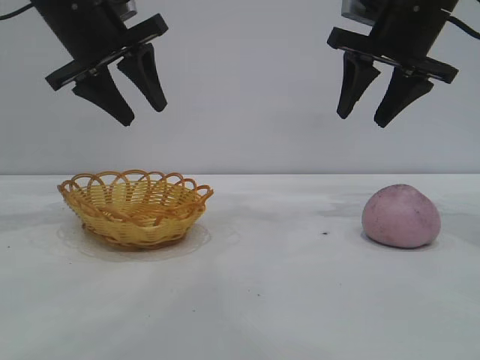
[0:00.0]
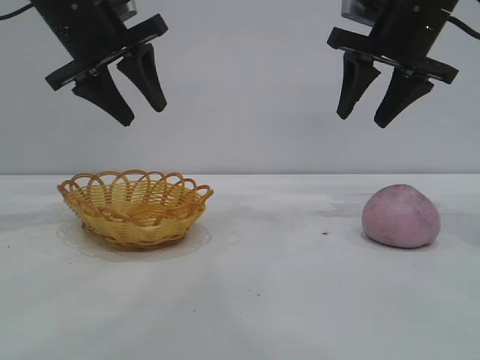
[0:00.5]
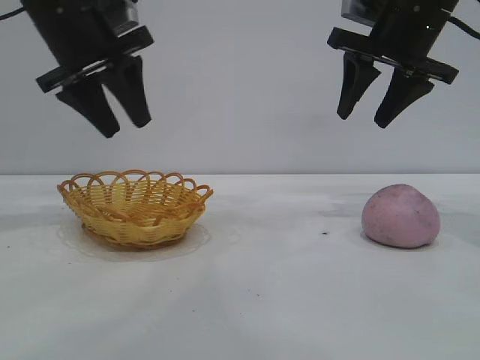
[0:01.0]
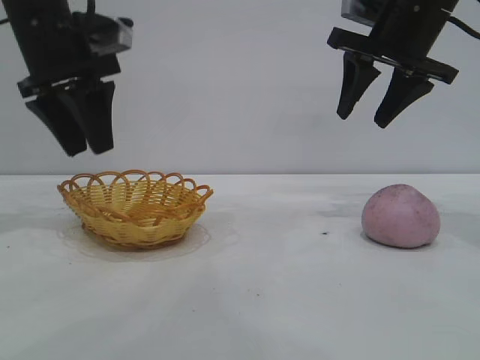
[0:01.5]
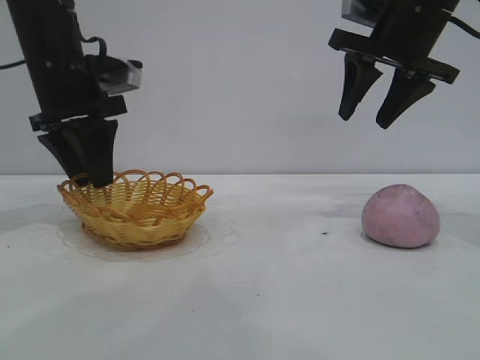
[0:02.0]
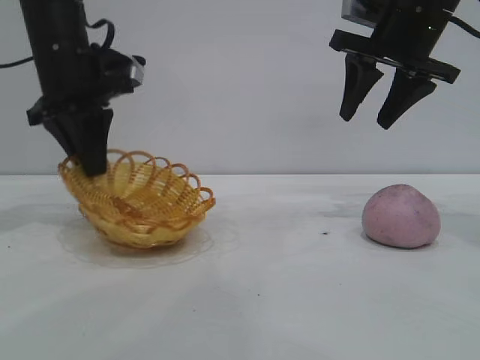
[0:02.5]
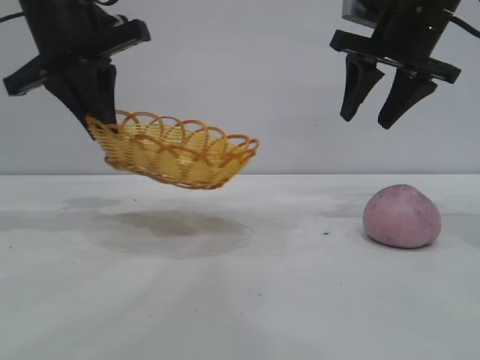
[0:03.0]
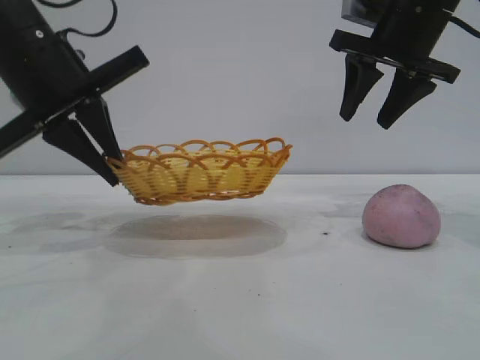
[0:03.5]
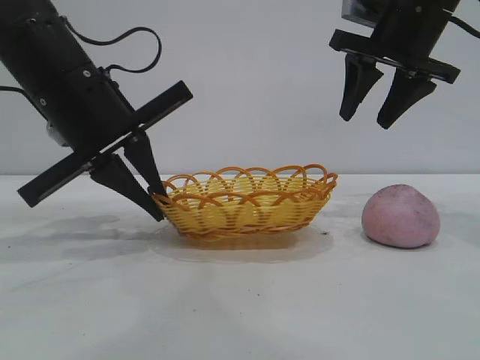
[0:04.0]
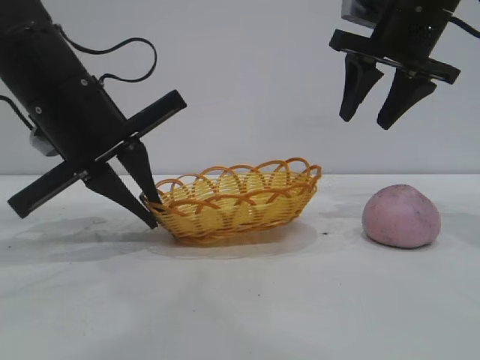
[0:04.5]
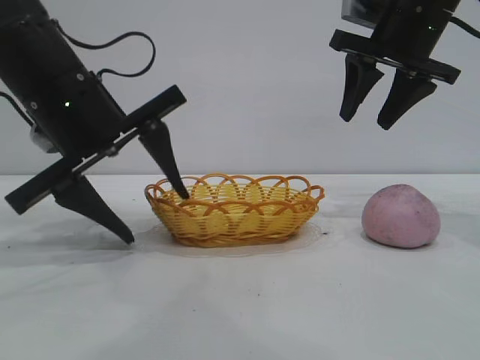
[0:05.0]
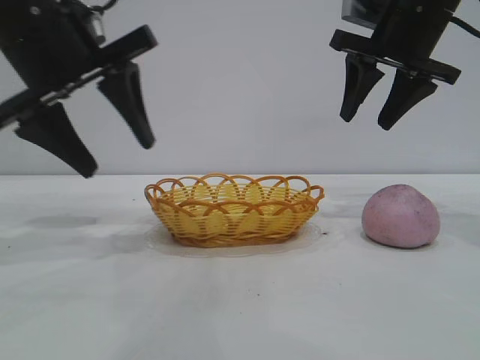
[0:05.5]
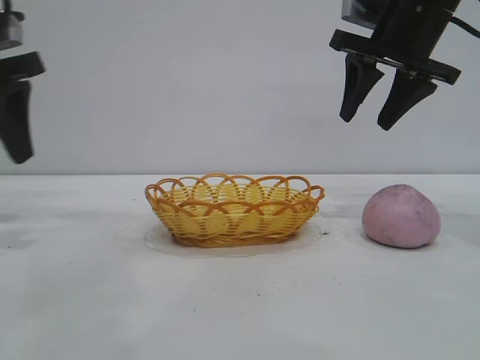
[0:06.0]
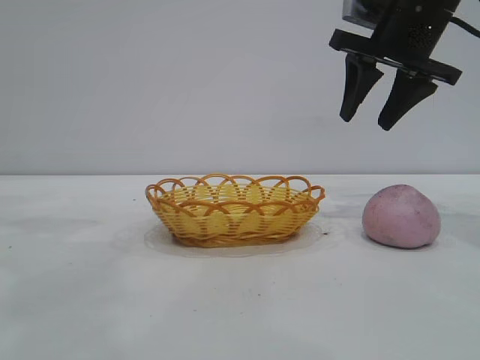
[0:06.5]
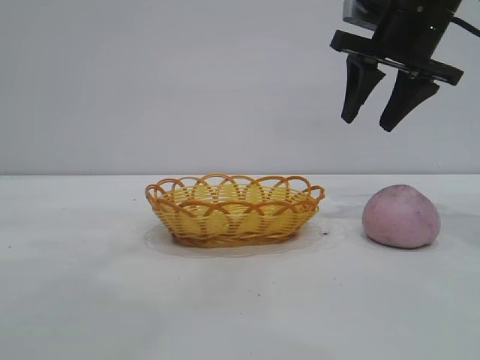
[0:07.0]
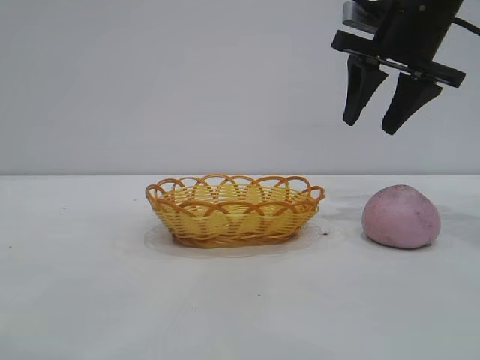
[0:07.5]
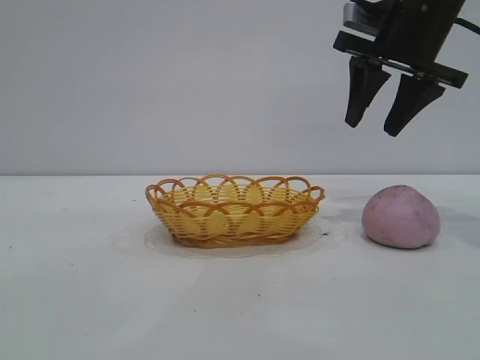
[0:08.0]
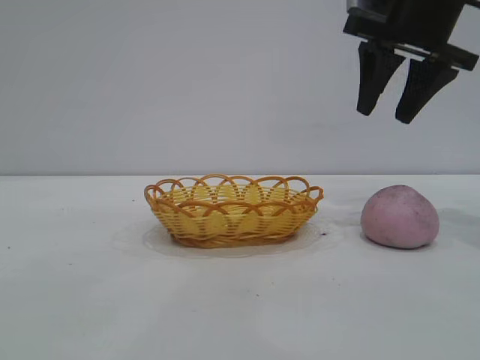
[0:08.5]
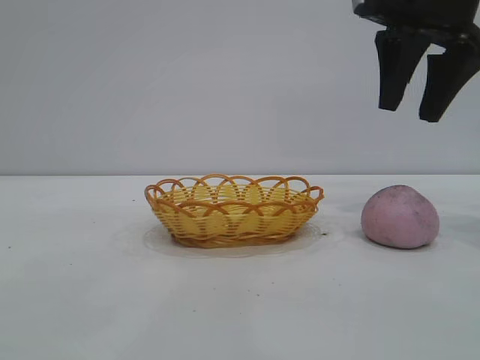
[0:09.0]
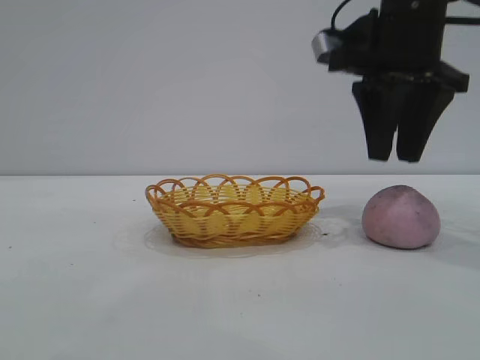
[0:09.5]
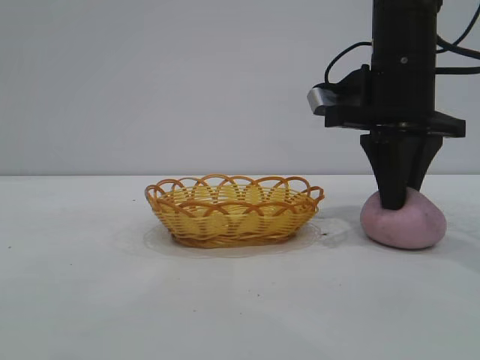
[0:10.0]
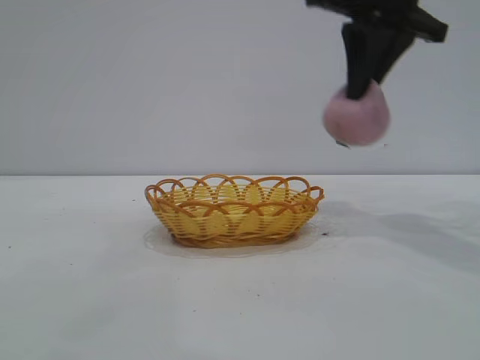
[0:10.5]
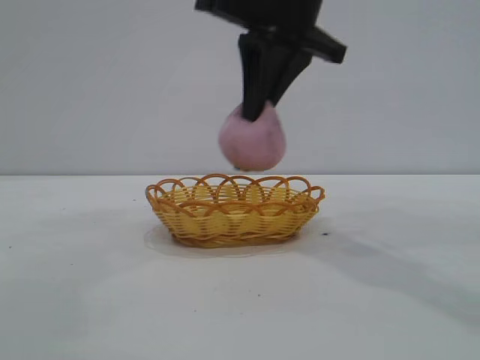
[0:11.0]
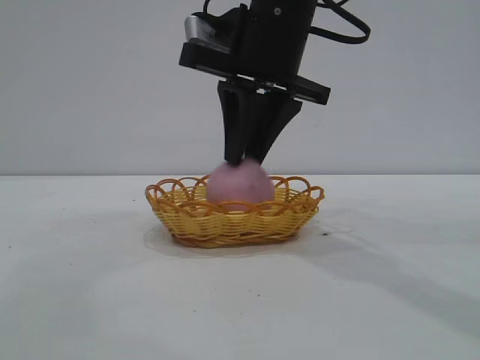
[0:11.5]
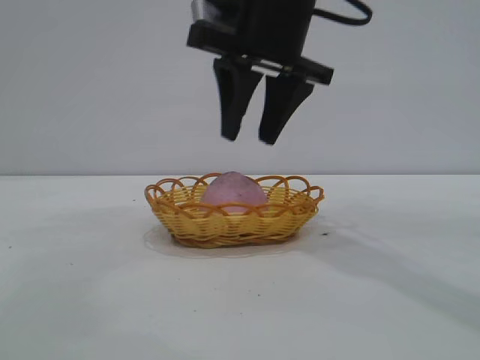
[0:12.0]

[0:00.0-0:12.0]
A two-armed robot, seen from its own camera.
Task of the whole recording: pick up the peach and put it into the basket.
Step, 0:00.0 to 0:05.0: Move the basket to the center of view.
Step, 0:05.5 to 0:10.0: Pick up the peach.
Step, 0:10.5 to 0:12.0: place the peach into the basket.

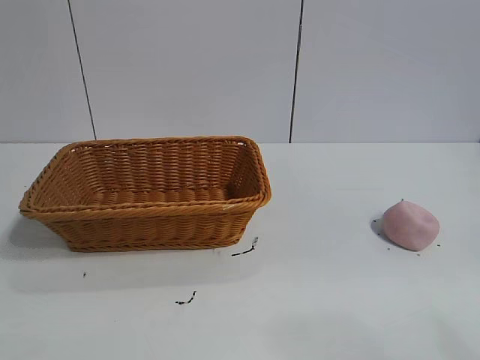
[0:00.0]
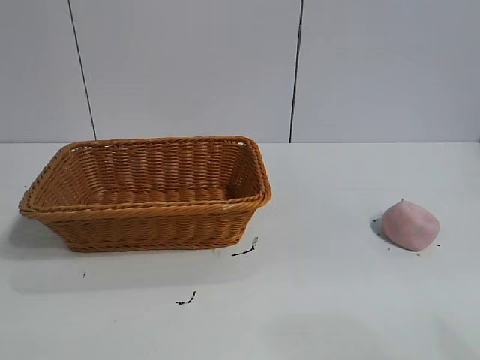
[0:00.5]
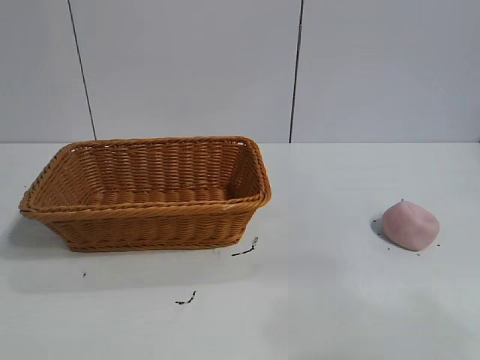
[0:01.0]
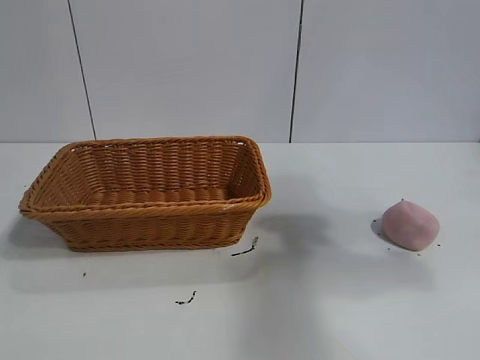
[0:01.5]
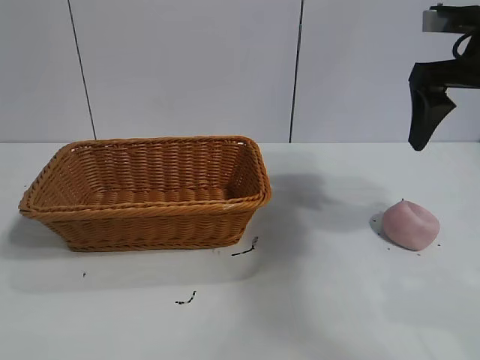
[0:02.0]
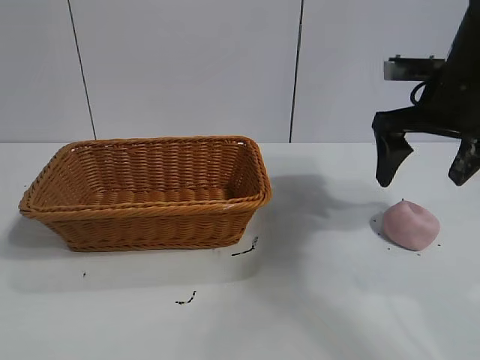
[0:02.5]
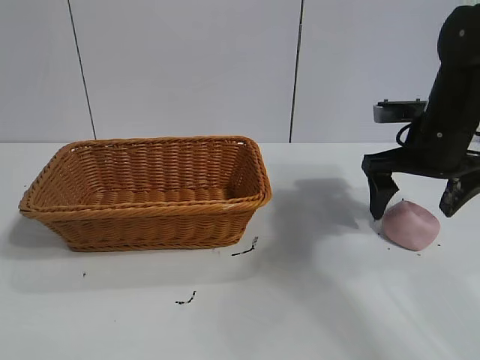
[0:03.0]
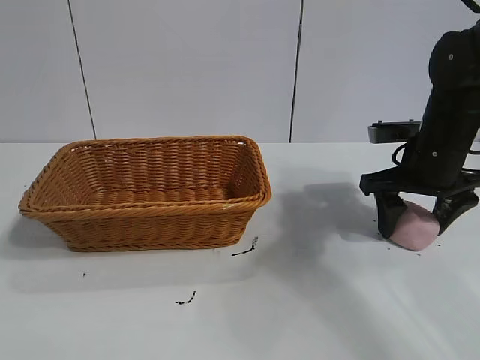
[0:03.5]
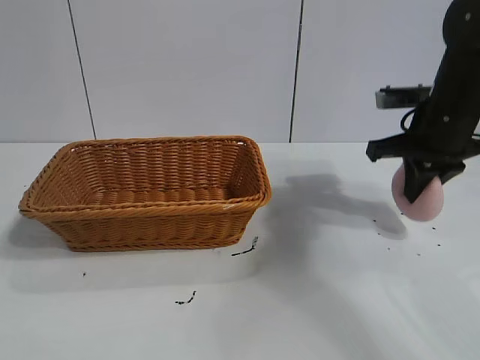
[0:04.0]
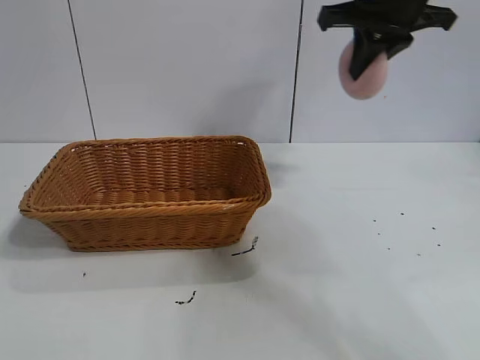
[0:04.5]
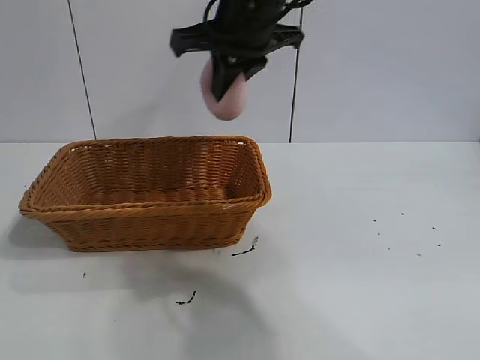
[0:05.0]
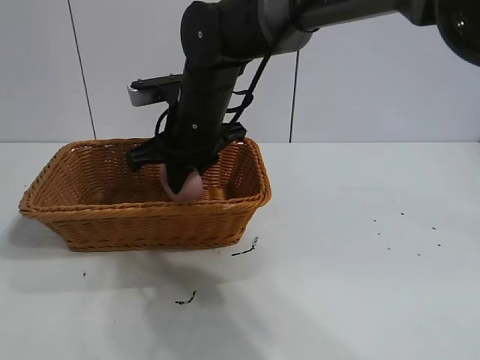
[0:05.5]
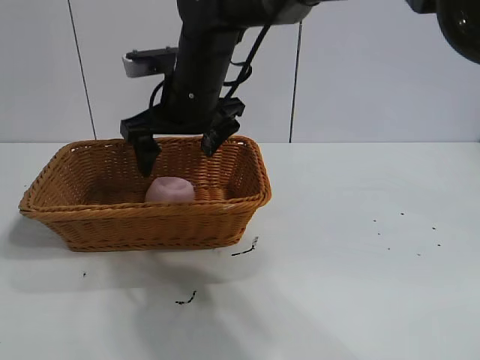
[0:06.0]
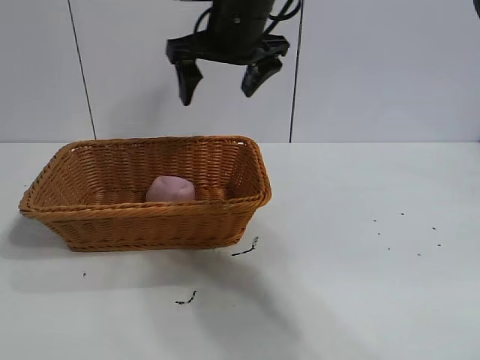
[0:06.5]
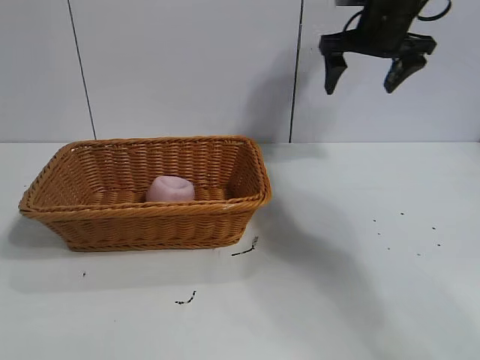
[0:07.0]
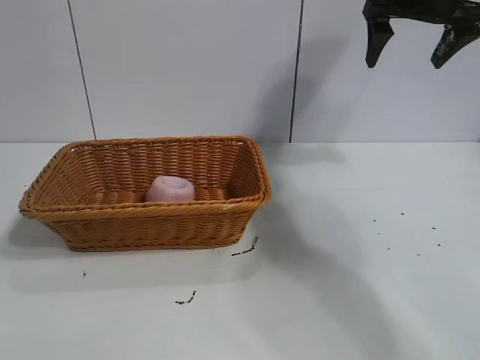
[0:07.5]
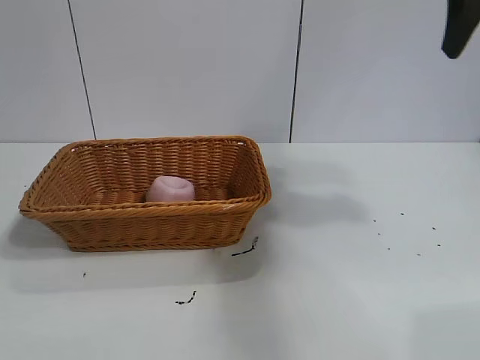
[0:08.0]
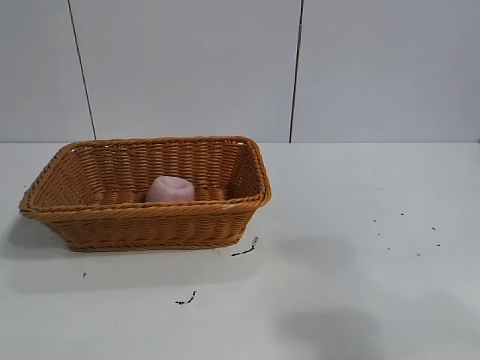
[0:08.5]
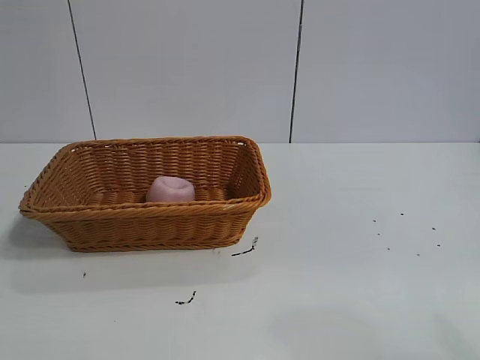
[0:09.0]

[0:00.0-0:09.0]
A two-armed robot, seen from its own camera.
Task of the whole recording: pick up the peach and put it into the basket.
Step, 0:01.0 to 0:03.5: Grasp the peach with right gripper.
Step, 0:04.0 to 0:05.5: Place the peach in the basket with right gripper.
